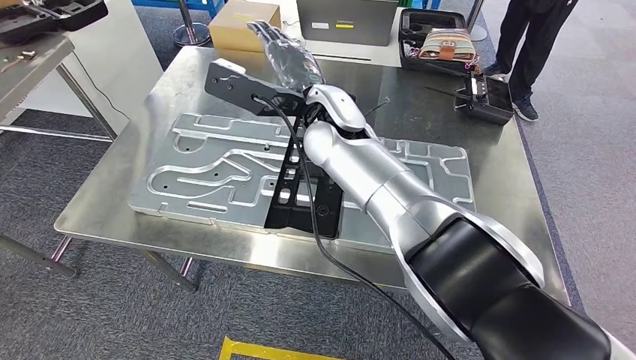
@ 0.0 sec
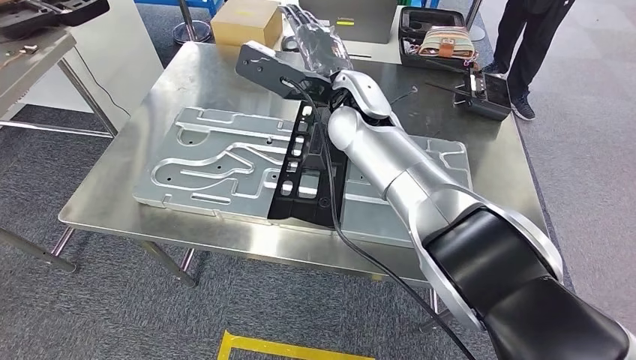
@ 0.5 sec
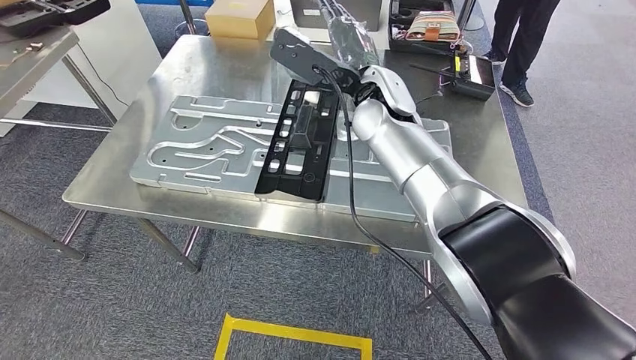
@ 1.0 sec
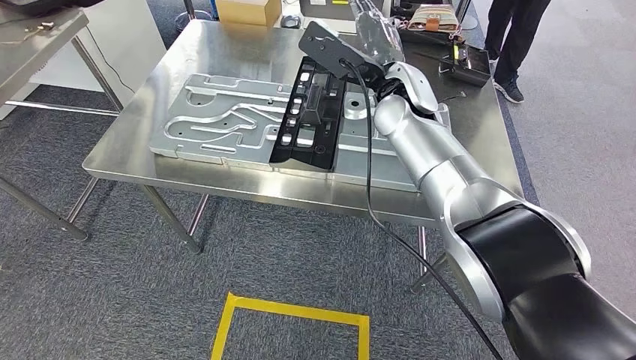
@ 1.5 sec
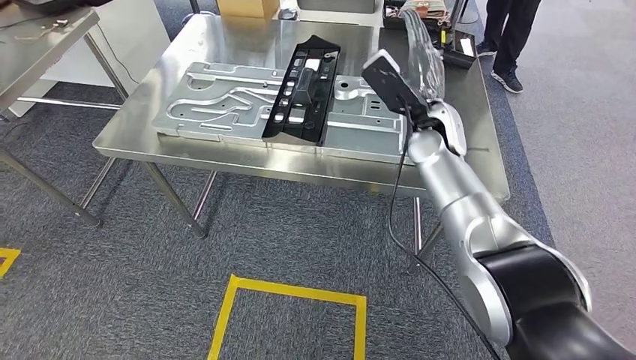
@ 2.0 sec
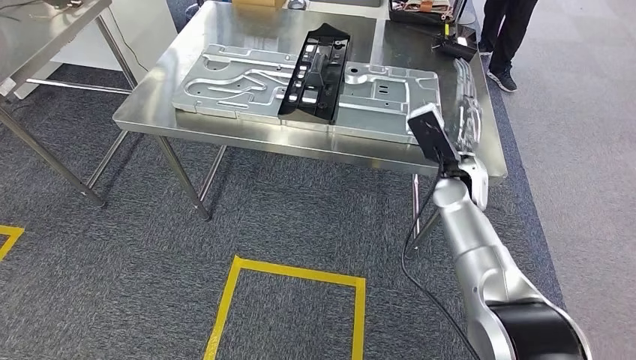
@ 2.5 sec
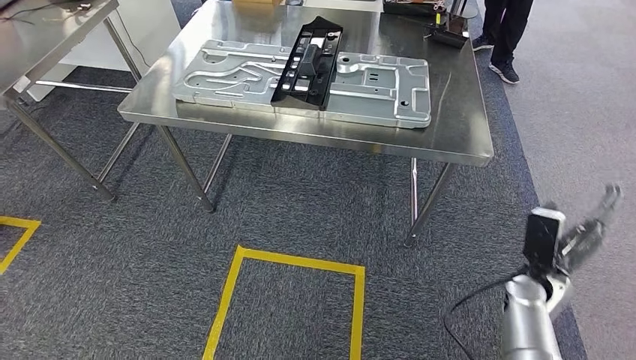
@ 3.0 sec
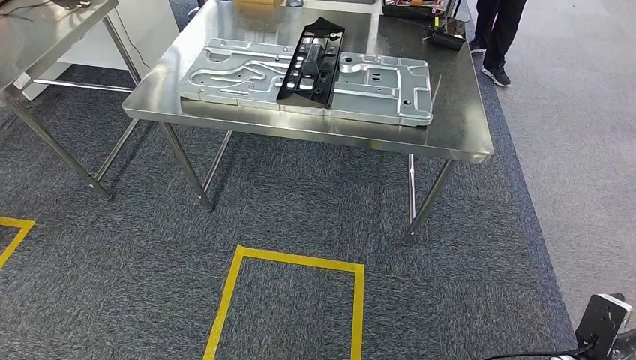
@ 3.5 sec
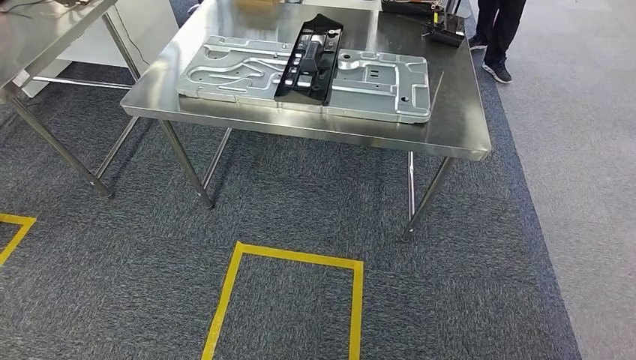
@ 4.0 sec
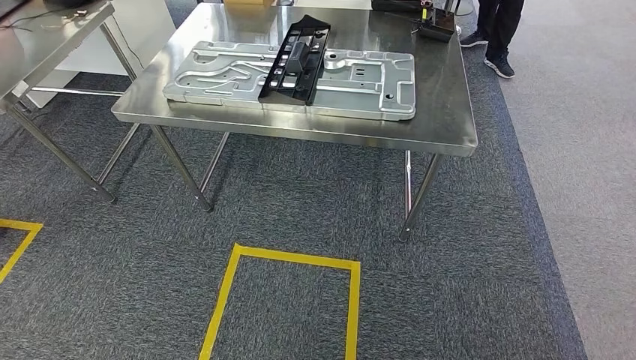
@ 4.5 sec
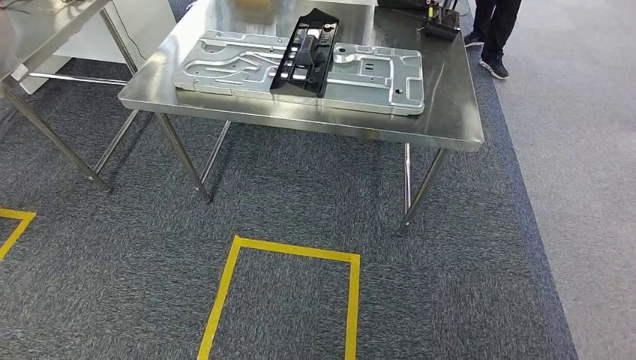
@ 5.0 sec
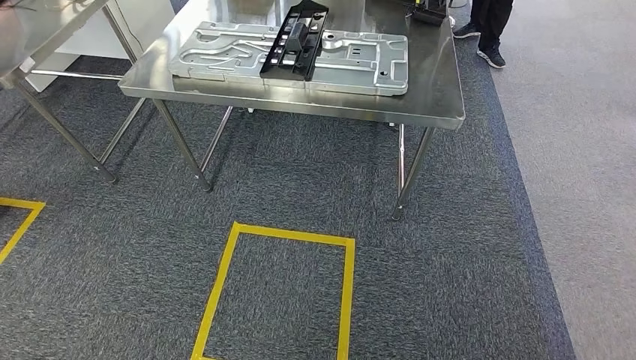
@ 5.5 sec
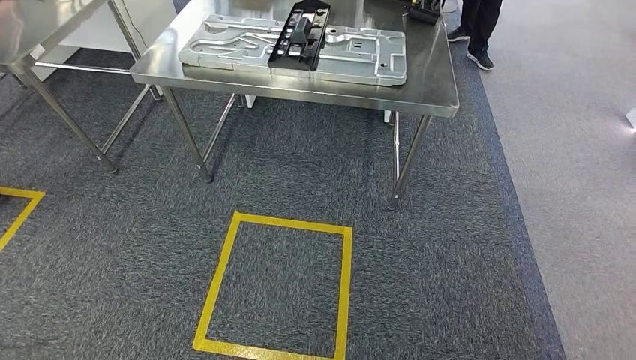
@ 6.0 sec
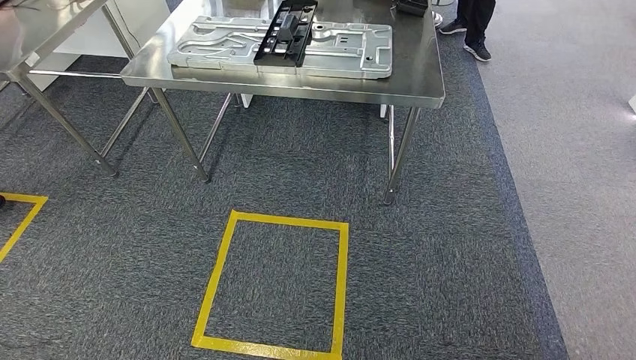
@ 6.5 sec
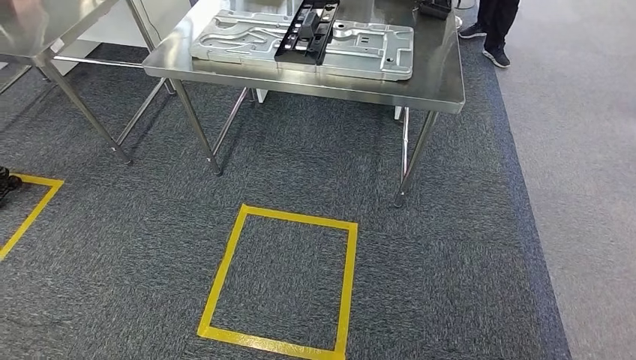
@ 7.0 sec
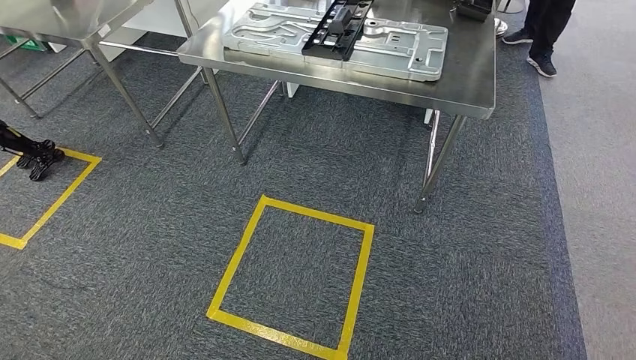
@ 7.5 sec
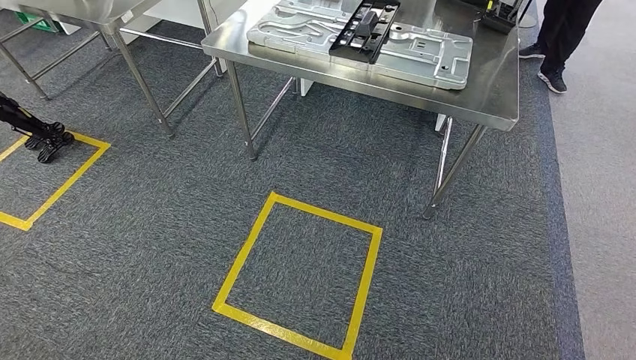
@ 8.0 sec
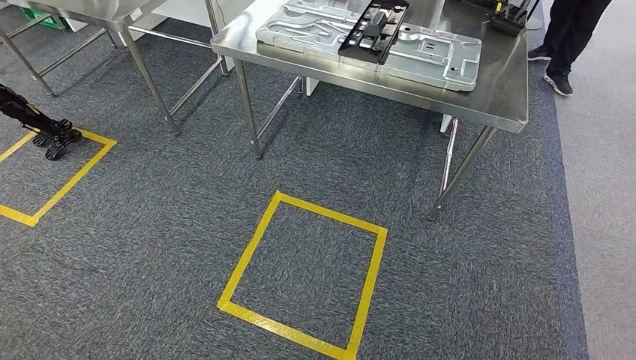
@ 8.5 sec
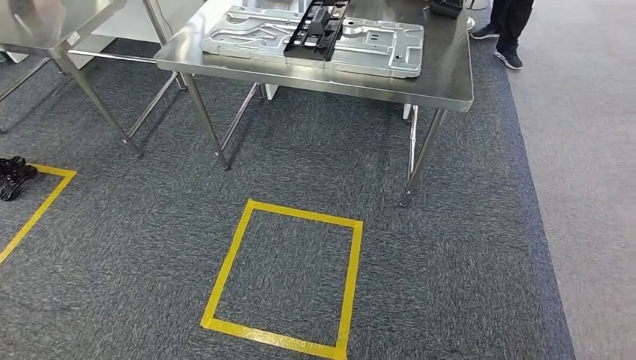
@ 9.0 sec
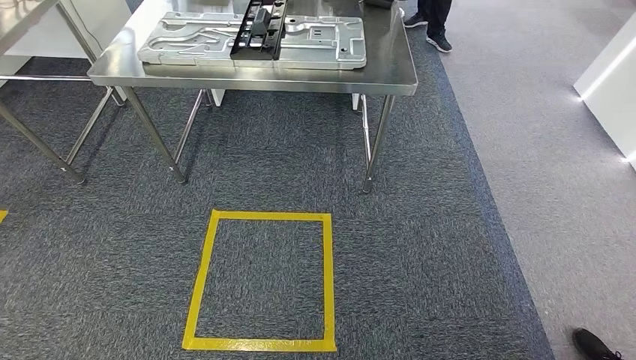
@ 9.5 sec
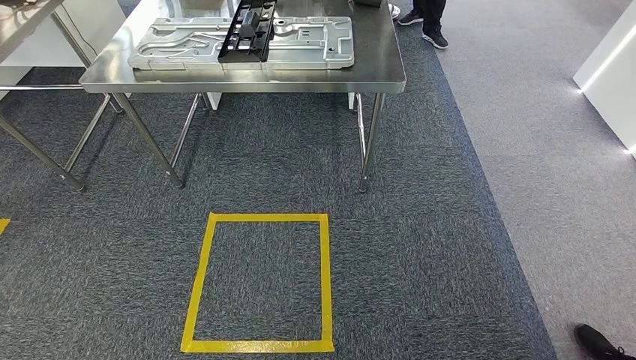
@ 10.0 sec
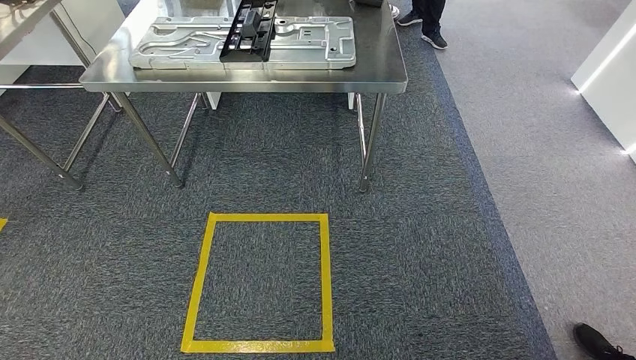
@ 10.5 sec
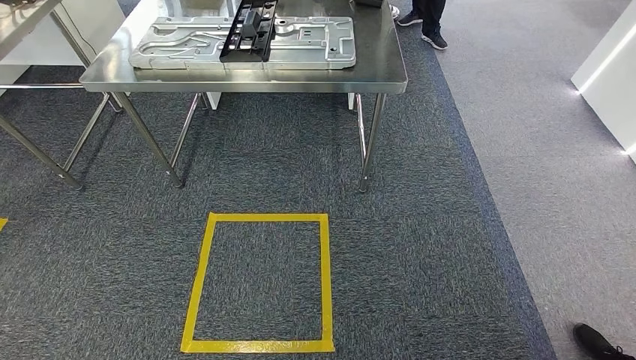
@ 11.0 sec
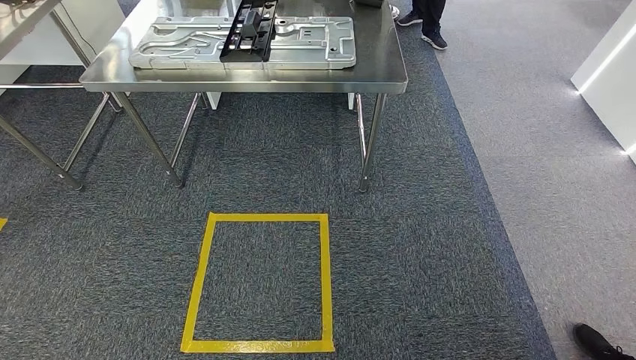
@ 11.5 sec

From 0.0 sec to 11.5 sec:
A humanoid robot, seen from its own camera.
Step, from 0.0 sec to 2.5 sec: Insert the large material into the corresponding slot on the workbench.
Step, from 5.0 sec to 11.5 sec: Move to the initial position of the shelf.
